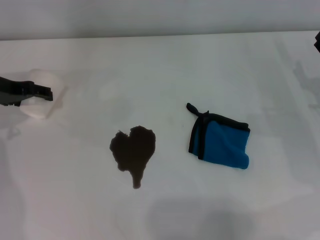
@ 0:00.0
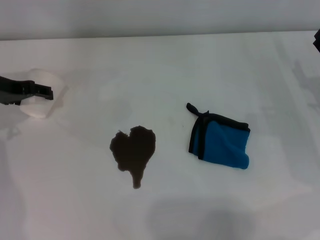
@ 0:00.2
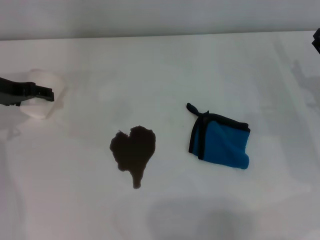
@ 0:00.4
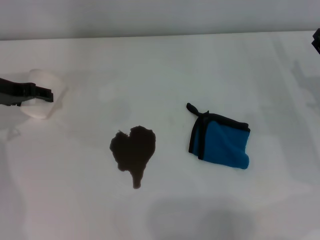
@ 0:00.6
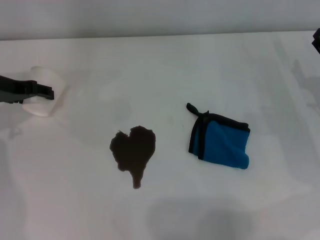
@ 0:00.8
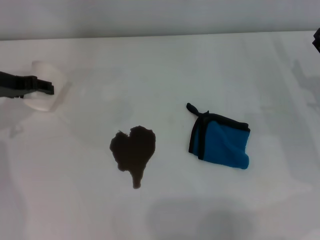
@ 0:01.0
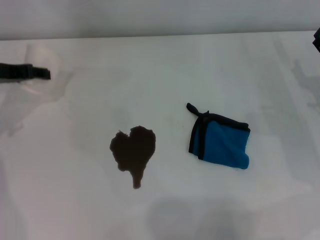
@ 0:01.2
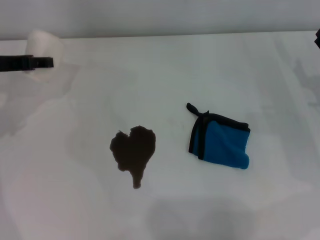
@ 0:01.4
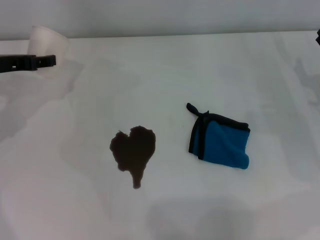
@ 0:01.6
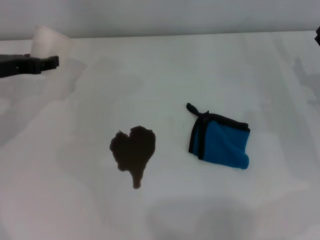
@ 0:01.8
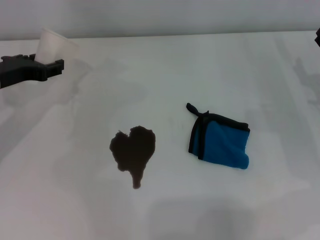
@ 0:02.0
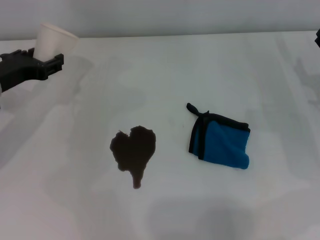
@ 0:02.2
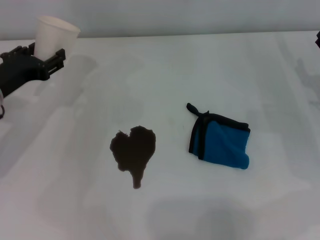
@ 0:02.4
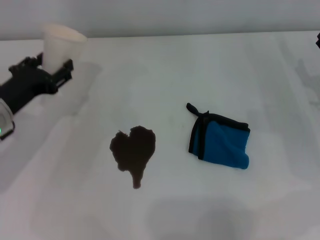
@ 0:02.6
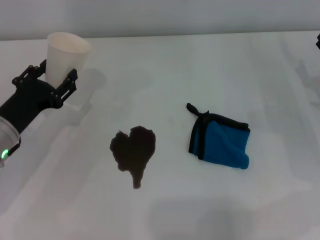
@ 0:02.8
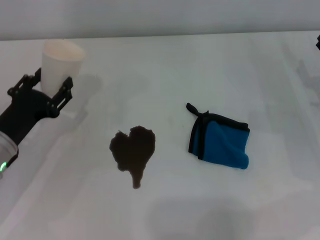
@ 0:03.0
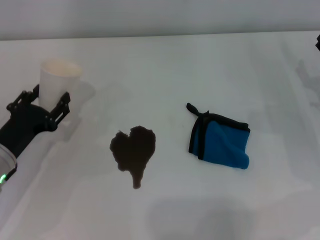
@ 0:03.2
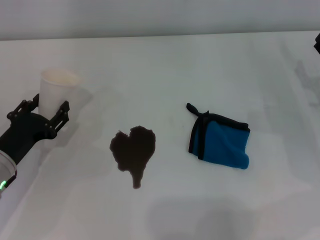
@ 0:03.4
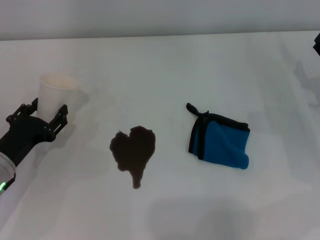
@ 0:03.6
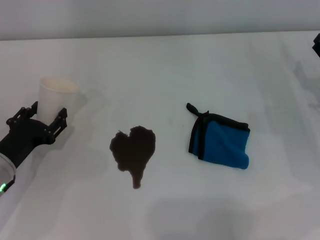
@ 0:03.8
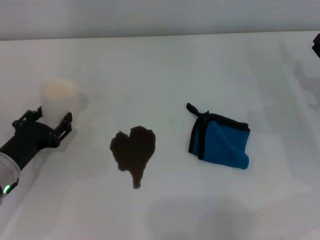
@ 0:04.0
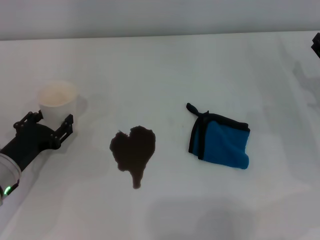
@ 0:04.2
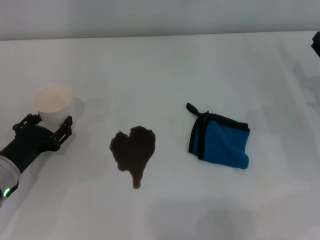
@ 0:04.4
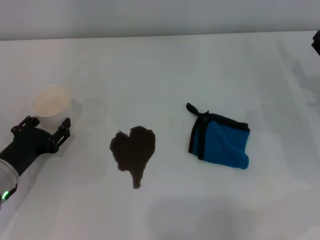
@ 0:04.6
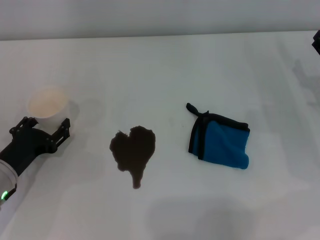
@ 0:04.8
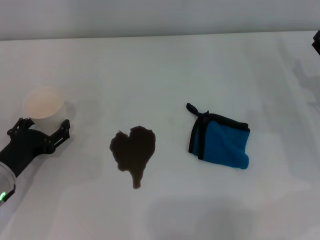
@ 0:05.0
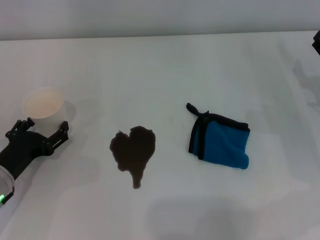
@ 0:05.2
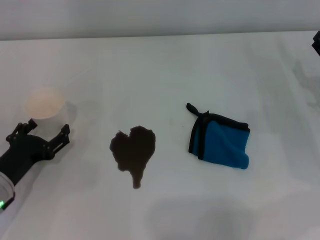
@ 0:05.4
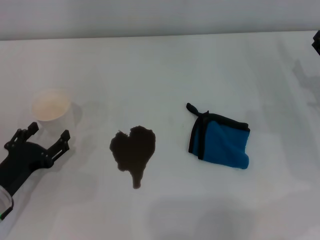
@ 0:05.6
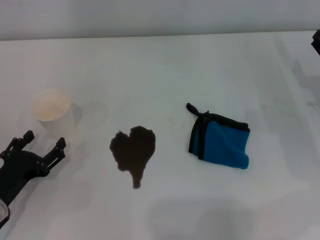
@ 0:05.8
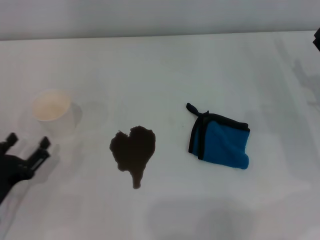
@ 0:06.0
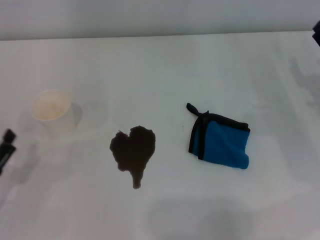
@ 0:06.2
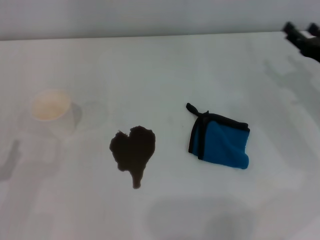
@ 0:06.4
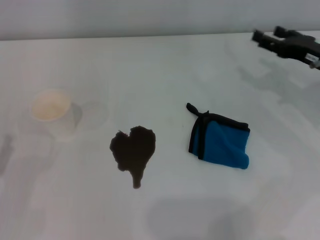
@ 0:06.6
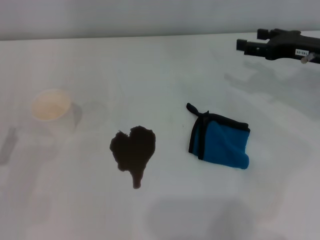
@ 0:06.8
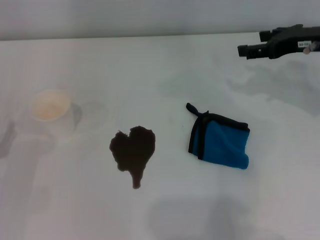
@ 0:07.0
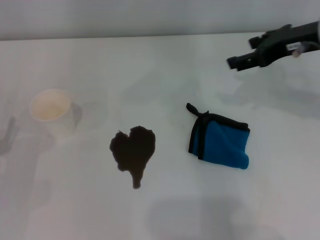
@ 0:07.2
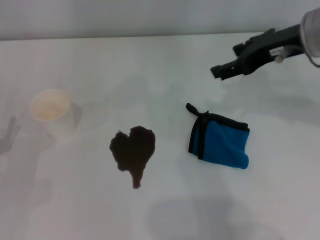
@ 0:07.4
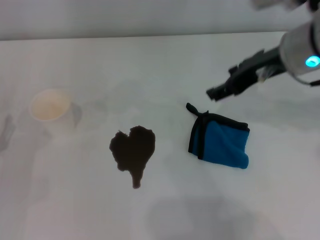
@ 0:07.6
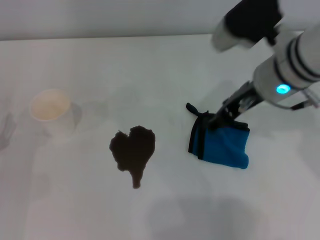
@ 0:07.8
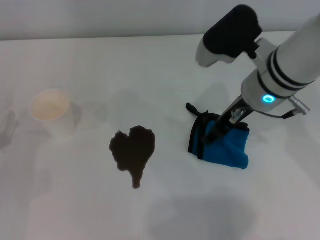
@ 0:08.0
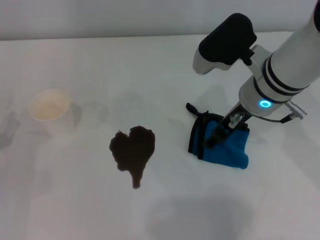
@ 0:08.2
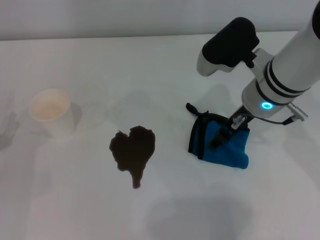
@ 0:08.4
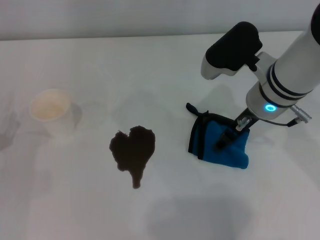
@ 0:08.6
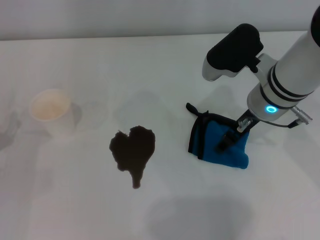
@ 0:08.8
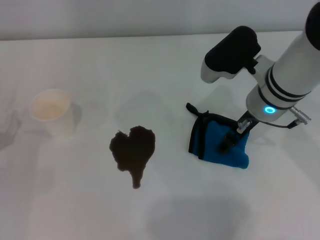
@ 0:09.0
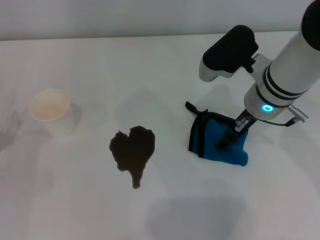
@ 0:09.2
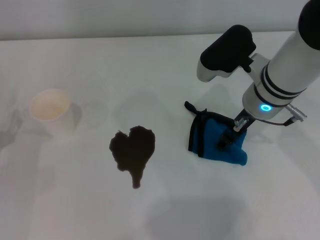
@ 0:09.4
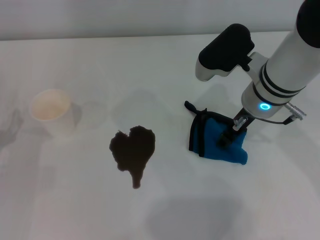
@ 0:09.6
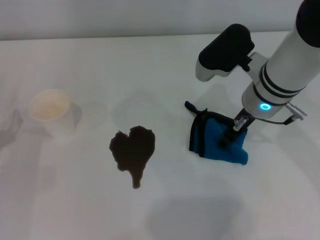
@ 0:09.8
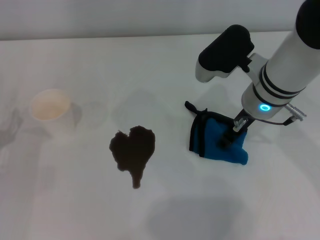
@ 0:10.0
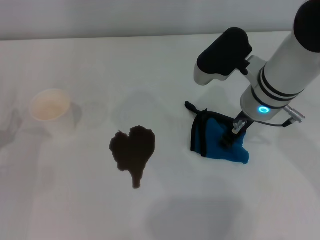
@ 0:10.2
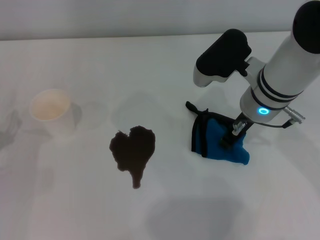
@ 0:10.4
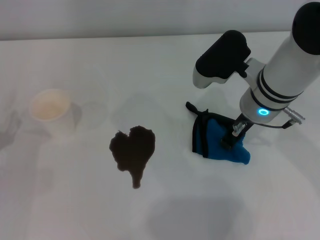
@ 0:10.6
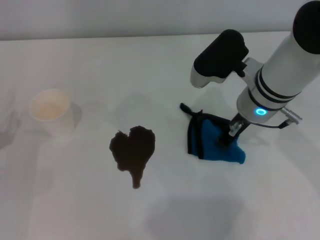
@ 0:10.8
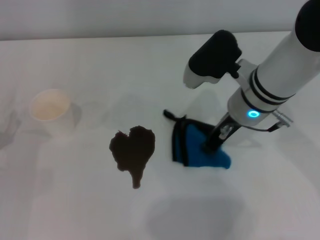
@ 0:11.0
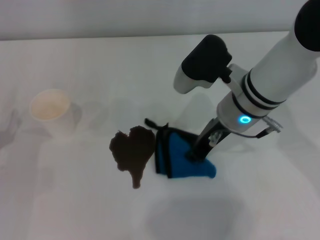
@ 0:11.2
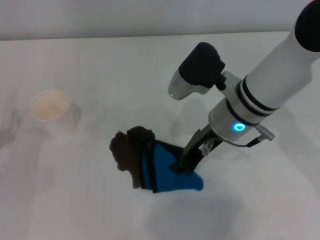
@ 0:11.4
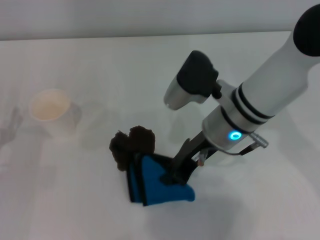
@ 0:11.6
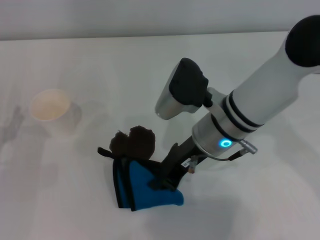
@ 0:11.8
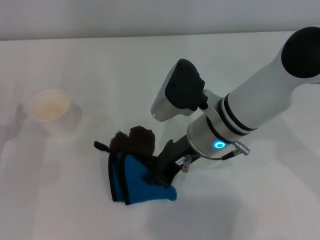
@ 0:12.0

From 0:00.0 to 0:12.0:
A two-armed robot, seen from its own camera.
Step, from 0:01.0 to 0:04.8: Stand the paper cup upright with the left gripper.
Step, from 0:05.0 to 0:10.6: Grasp the rag with the right gripper.
From 0:00.0 to 0:01.6: The left gripper closes.
From 0:01.6 to 0:03.0: The left gripper travels downward and backward by about 15 cm.
From 0:03.0 to 0:04.4: There are only small adjustments of the grippers.
From 0:04.4 to 0:06.0: The left gripper heads backward, covering some 5 cm, and opens its fingers.
From 0:06.0 to 0:07.6: The right gripper moves upward and to the left, about 20 cm. Meanwhile the left gripper ends up approximately 5 cm from where it was.
From 0:07.6 to 0:09.0: The right gripper travels downward by approximately 10 cm.
From 0:09.0 to 0:10.4: The right gripper closes.
From 0:10.4 to 0:12.0: The right gripper travels to the left by about 5 cm.

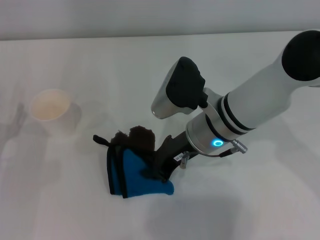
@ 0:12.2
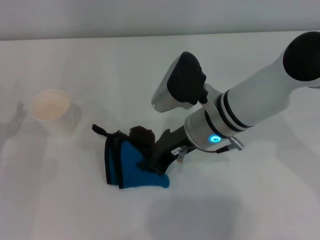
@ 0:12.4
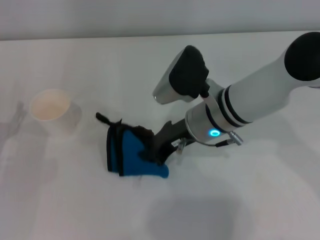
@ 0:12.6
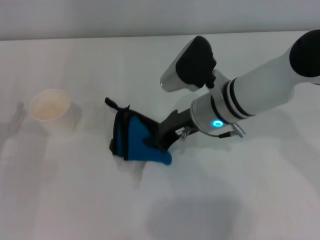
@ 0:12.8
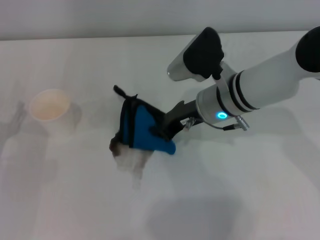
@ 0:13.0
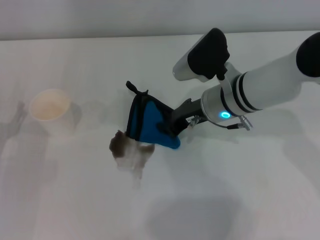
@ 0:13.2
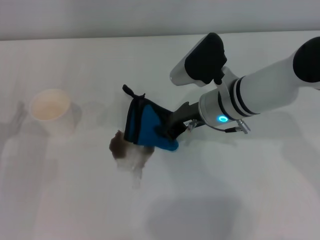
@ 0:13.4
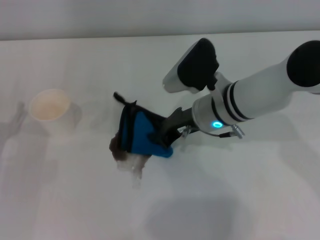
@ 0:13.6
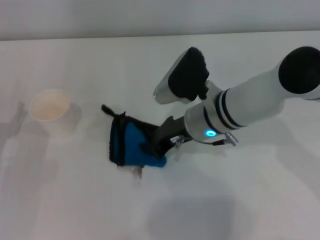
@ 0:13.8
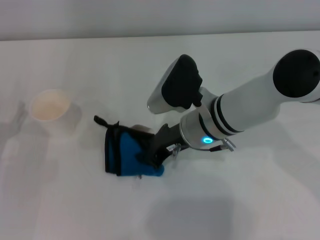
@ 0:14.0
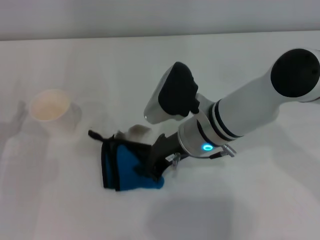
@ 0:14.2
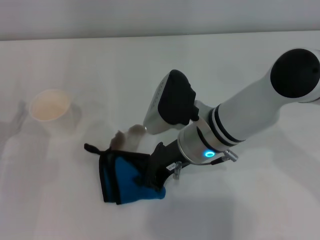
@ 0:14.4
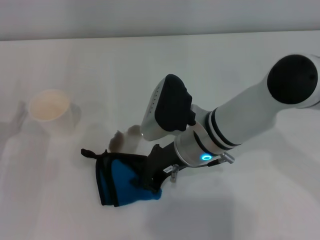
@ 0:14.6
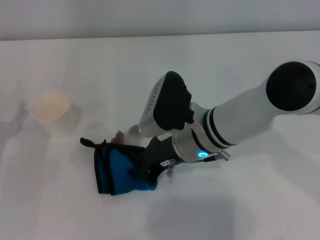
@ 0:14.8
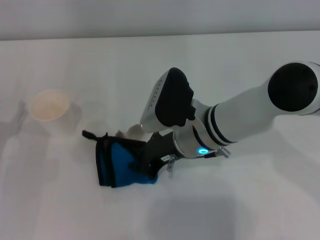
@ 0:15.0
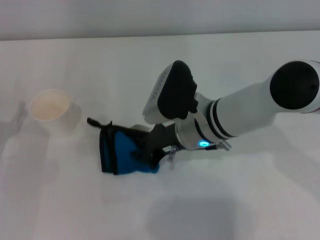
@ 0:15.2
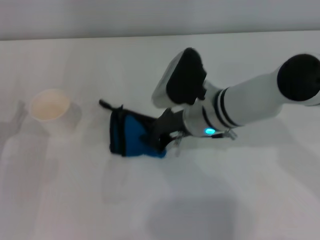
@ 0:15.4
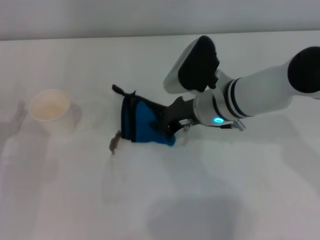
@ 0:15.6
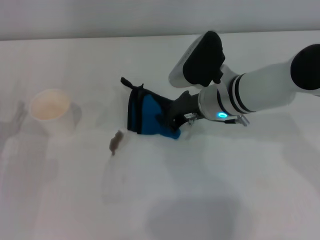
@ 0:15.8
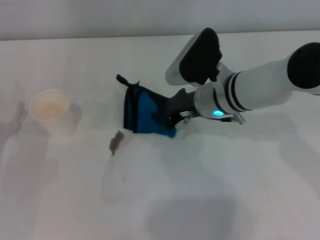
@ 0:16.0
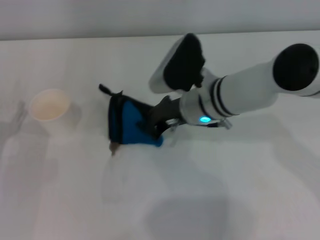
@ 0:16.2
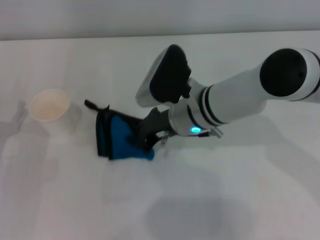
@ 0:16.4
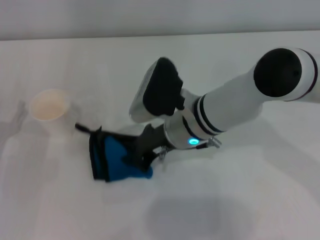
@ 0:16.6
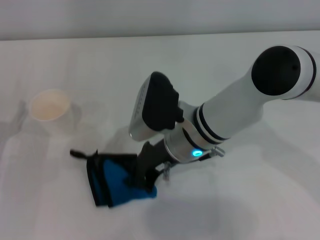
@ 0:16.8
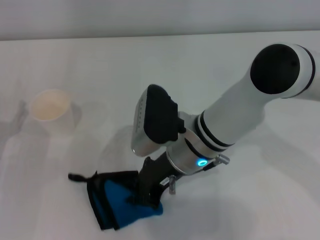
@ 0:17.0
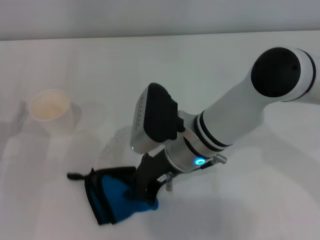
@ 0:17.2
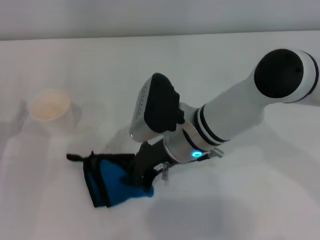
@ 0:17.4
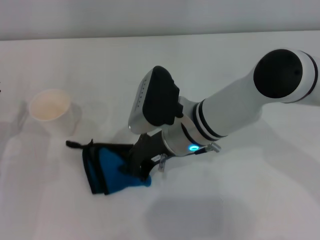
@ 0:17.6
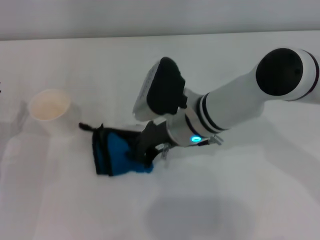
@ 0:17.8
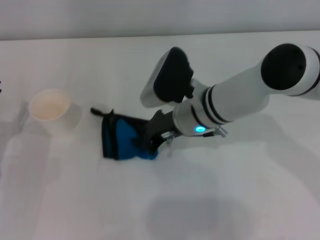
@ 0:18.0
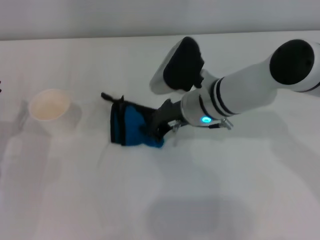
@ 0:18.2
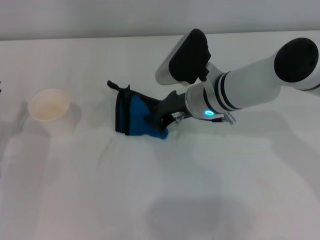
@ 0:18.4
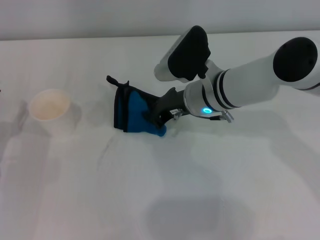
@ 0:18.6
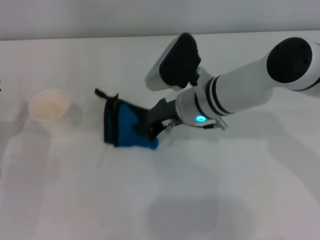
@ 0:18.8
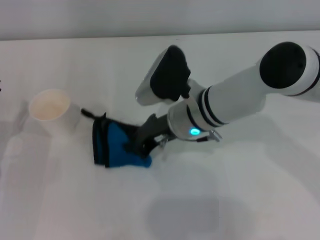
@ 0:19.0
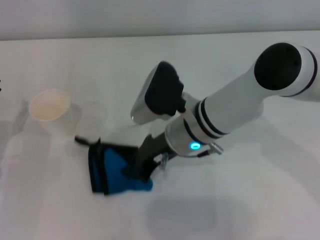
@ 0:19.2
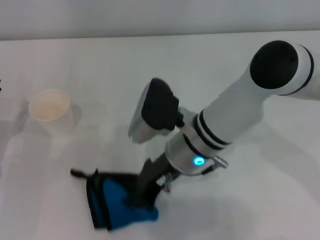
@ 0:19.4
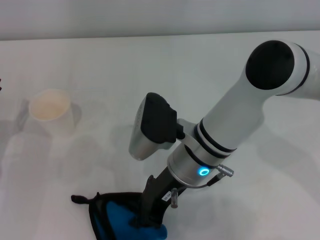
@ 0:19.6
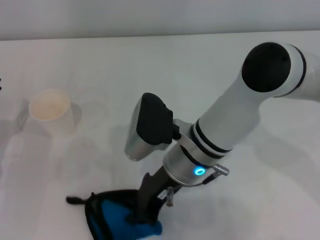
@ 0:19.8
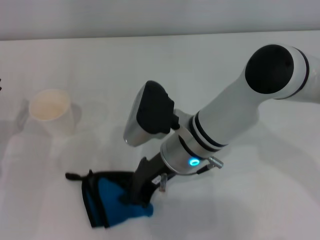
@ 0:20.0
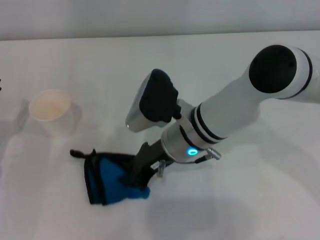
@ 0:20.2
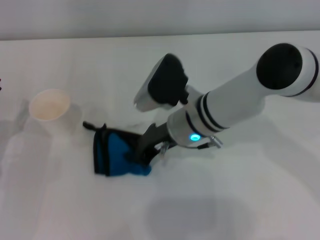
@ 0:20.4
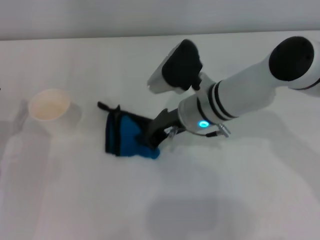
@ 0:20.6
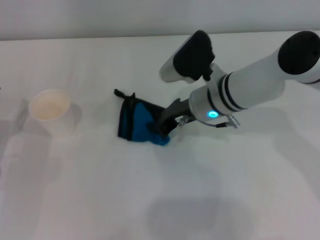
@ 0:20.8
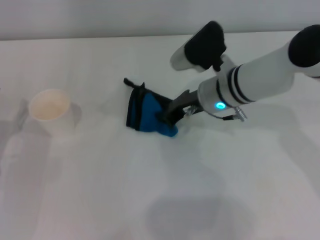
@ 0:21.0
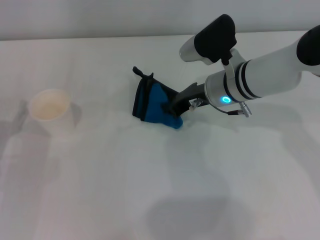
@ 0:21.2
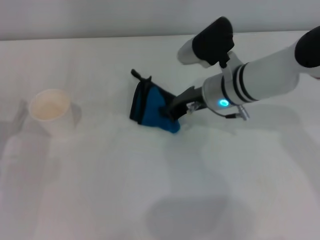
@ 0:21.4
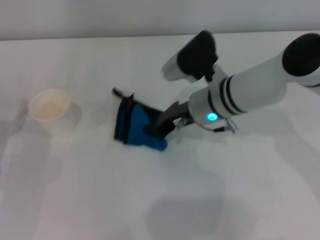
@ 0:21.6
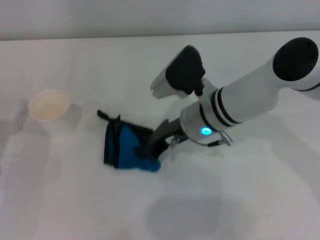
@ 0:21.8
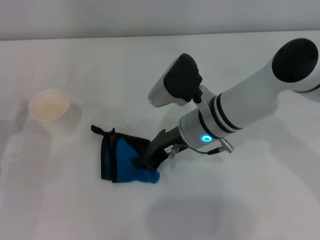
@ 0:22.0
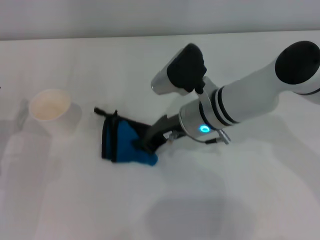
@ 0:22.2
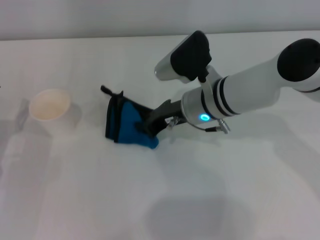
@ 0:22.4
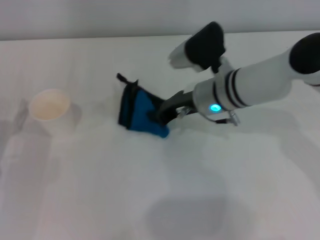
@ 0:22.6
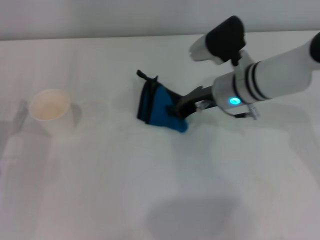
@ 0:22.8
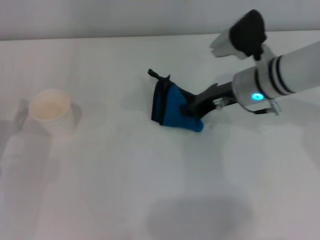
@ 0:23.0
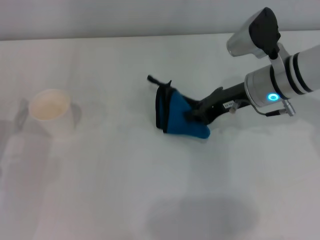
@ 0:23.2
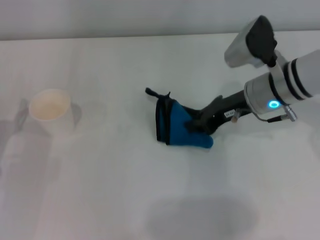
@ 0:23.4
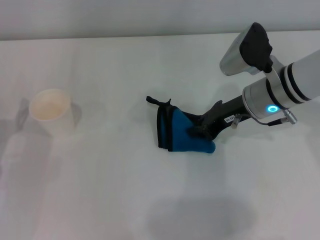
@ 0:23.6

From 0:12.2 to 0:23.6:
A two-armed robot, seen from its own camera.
Step, from 0:12.2 to 0:23.0: Wipe the stains off the table with the right gripper.
From 0:12.2 to 0:15.0: The grippers move only a little.
From 0:17.8 to 0:19.4: The grippers stay close to where they were, moving slightly.
From 0:19.4 to 0:20.8: The right gripper goes roughly 5 cm forward.
From 0:20.8 to 0:22.2: The grippers stay close to where they were, moving slightly.
From 0:22.2 to 0:23.6: The right gripper heads to the right, covering roughly 10 cm.
